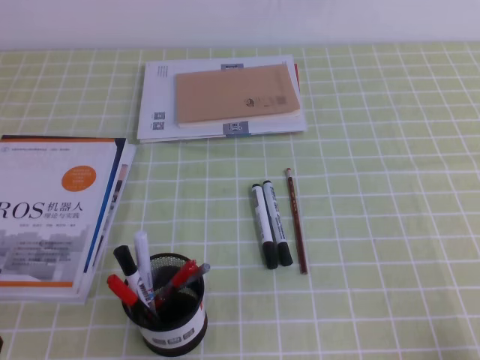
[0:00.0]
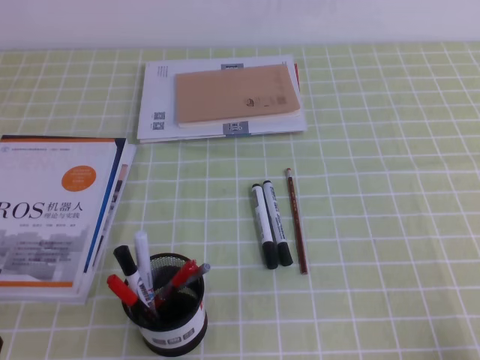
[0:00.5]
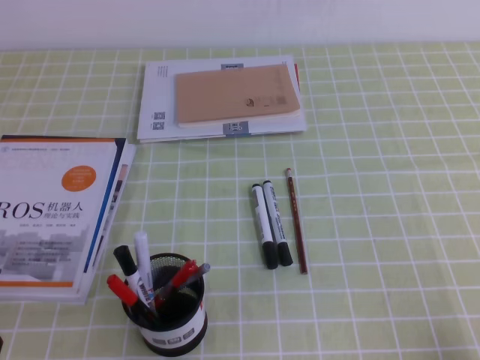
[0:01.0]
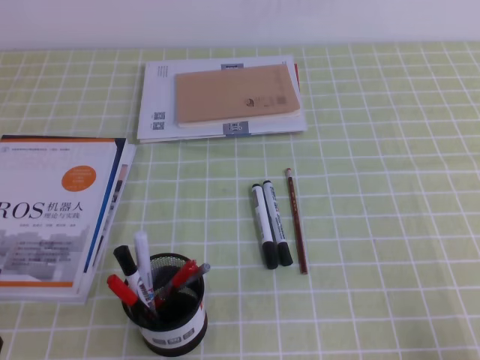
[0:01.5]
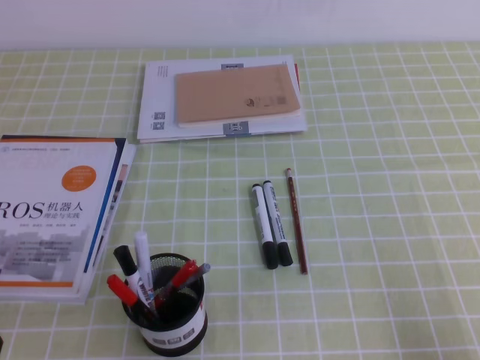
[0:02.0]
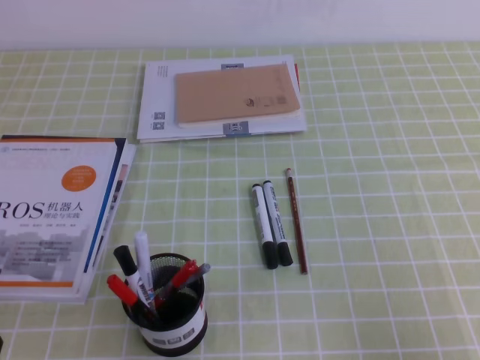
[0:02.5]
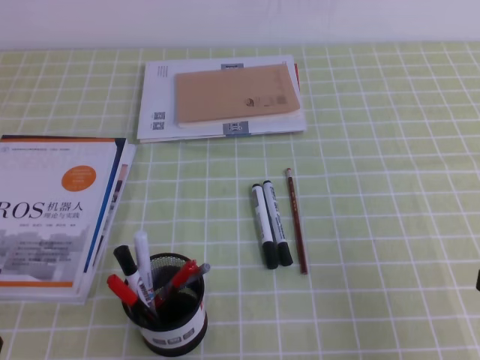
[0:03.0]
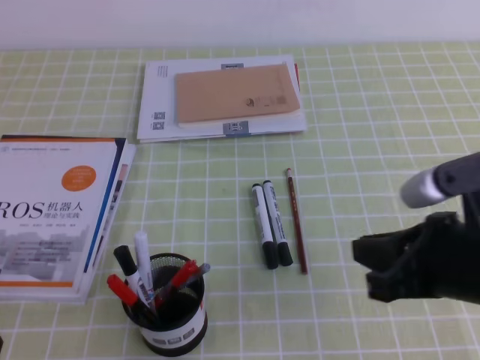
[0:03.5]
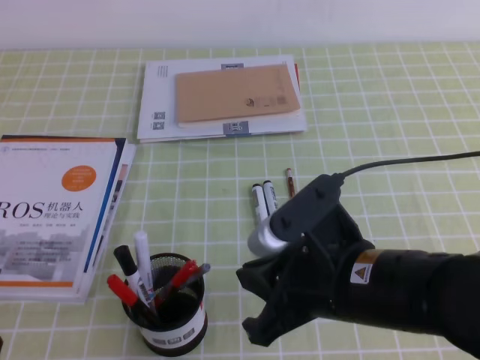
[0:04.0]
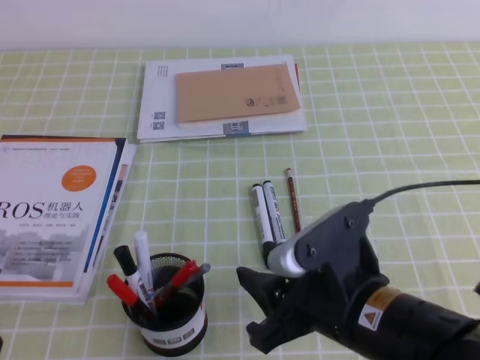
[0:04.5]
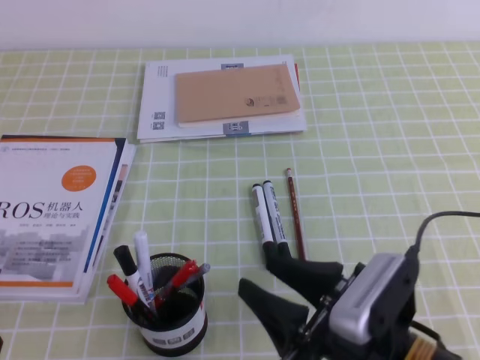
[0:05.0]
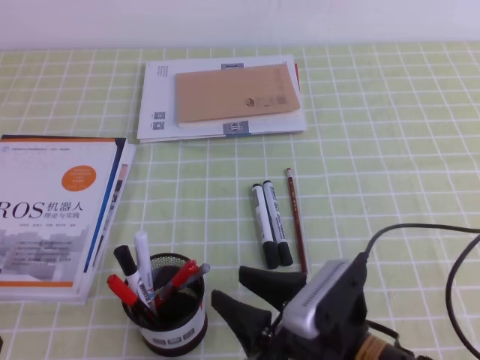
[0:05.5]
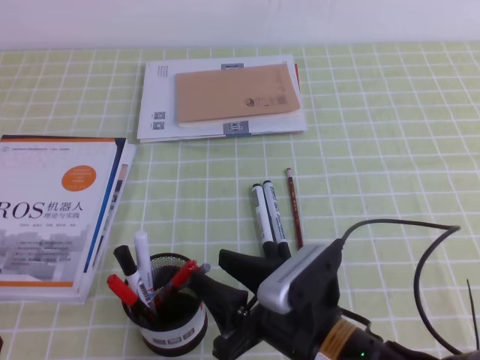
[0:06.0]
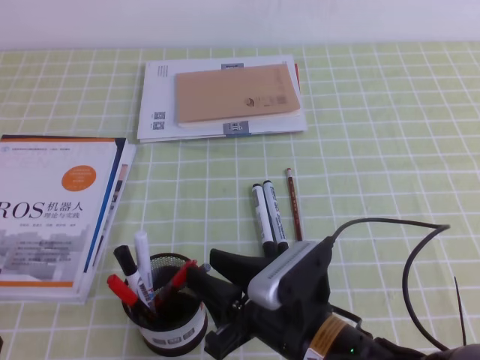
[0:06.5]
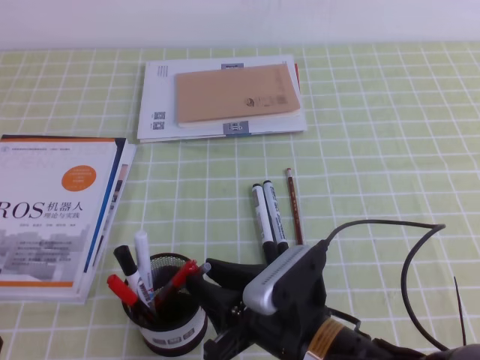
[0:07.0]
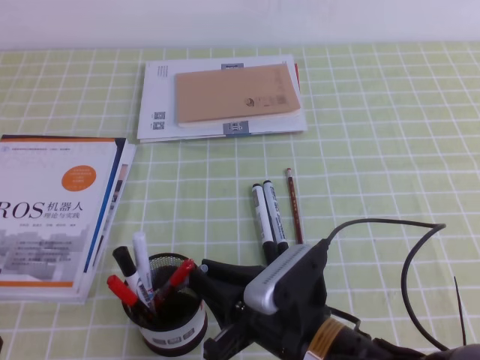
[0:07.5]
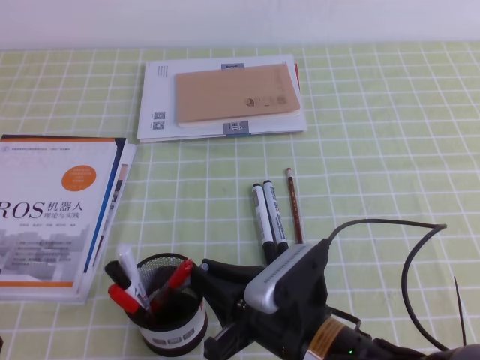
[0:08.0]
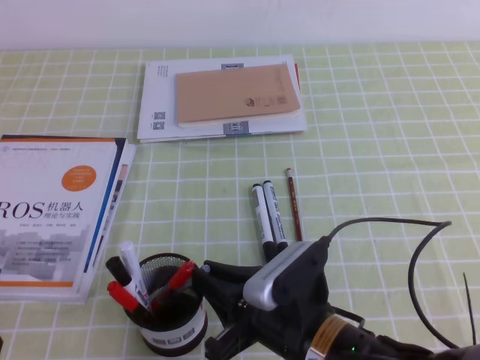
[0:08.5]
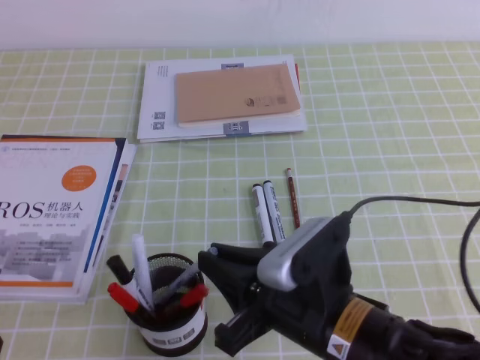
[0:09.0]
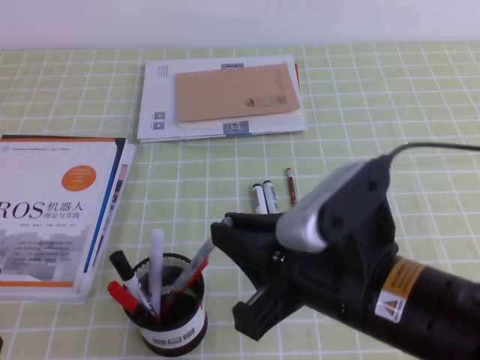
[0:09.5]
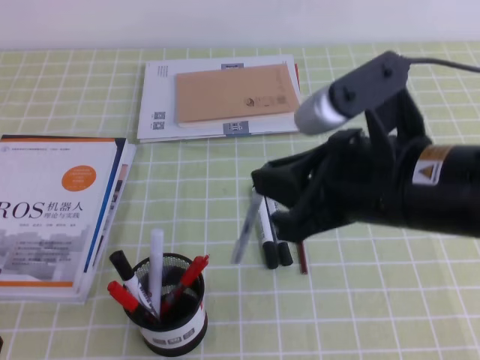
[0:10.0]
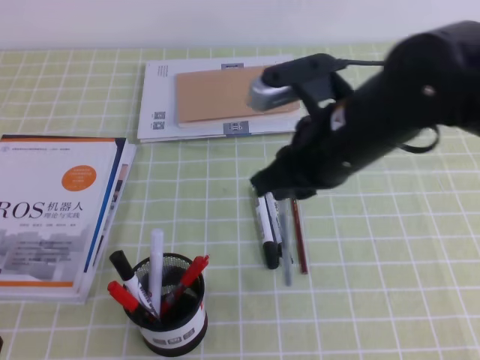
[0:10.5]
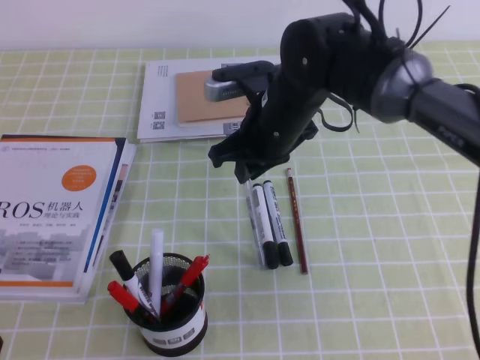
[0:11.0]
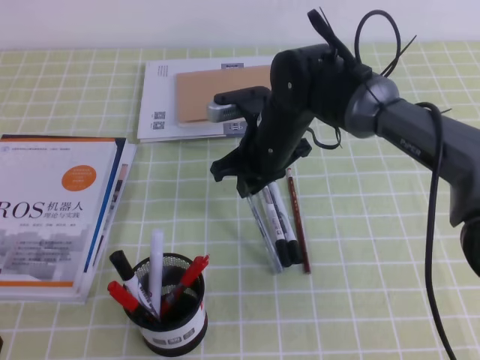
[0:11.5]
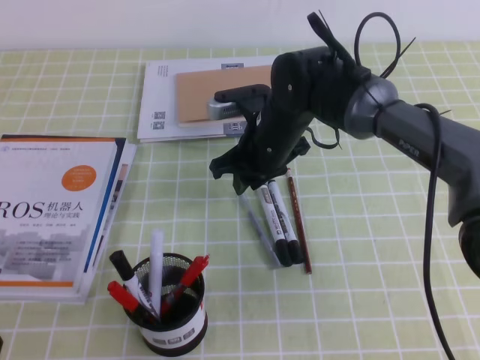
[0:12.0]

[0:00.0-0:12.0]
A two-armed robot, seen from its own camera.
0:02.0 to 0:04.0: The right gripper shifts approximately 25 cm to the left and forward.
0:04.0 to 0:06.0: The right gripper shifts approximately 10 cm downward, and opens its fingers.
0:06.0 to 0:08.0: The right gripper closes.
0:08.0 to 0:10.0: The right gripper goes some 15 cm upward.
0:10.0 to 0:12.0: The right gripper shifts approximately 25 cm forward and downward.

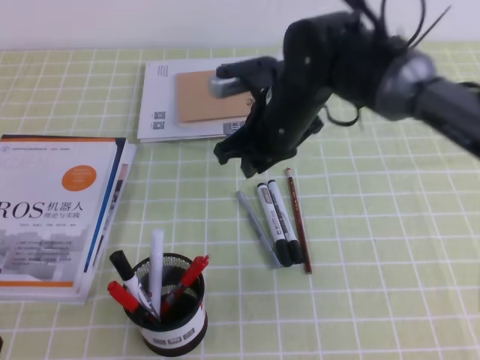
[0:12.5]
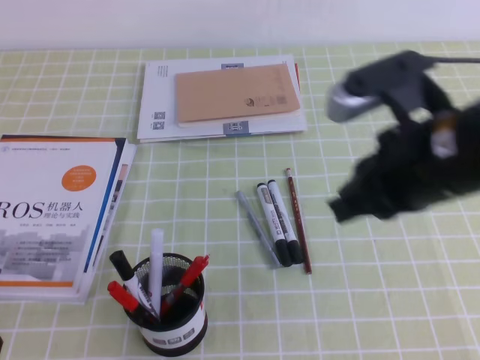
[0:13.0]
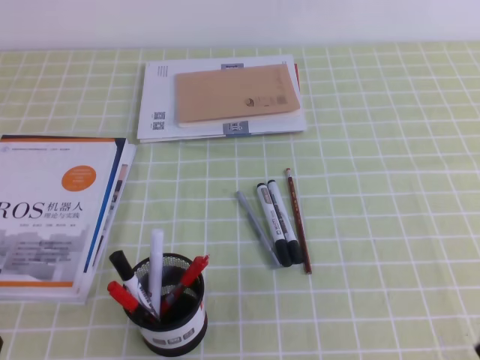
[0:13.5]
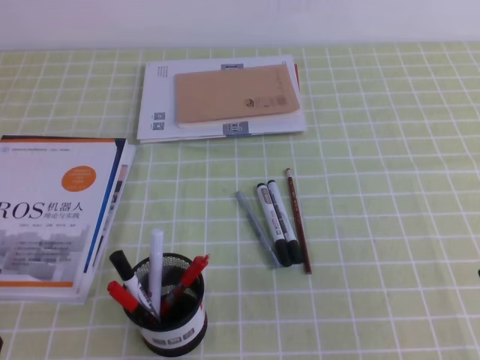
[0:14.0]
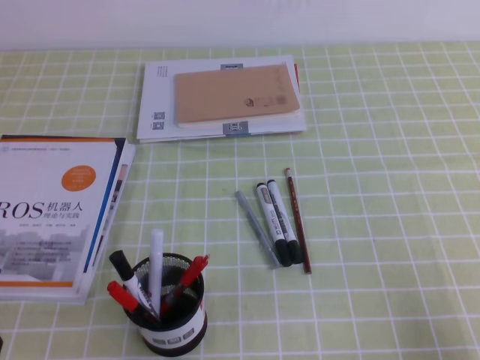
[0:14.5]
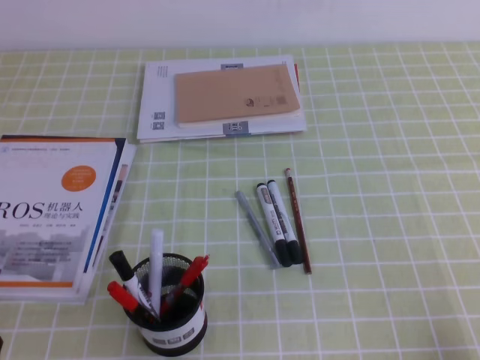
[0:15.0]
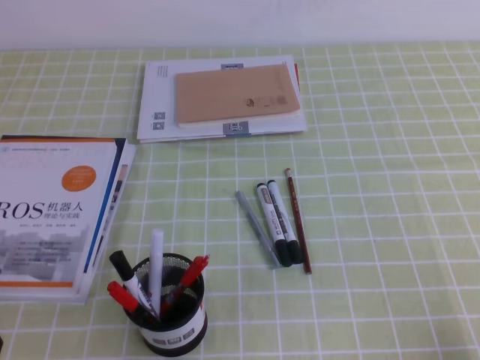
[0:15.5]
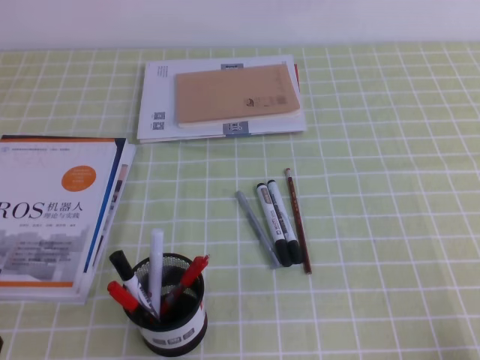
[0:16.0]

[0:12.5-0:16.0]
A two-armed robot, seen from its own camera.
Step, 0:12.5 to 0:16.0: Pick up the pen from the pen holder.
0:12.5 to 0:14.5: The right gripper heads backward and to the right, covering roughly 40 cm.

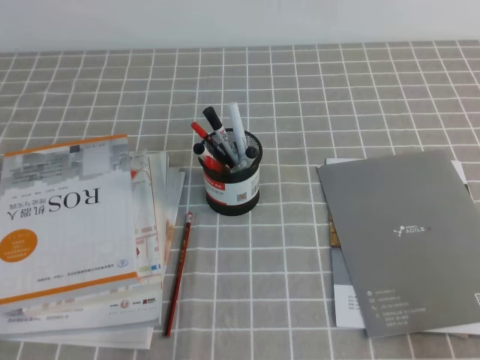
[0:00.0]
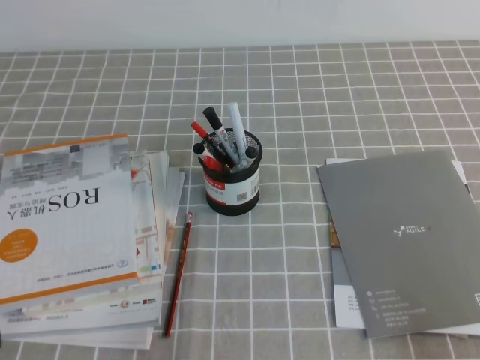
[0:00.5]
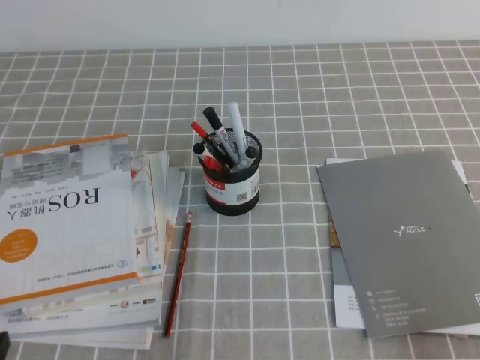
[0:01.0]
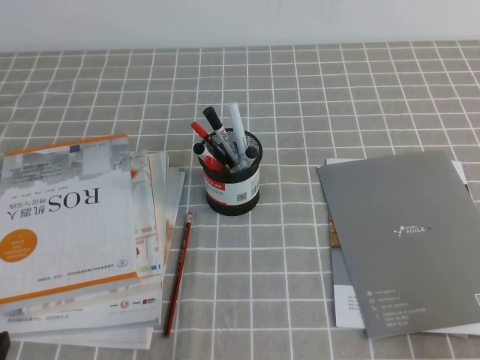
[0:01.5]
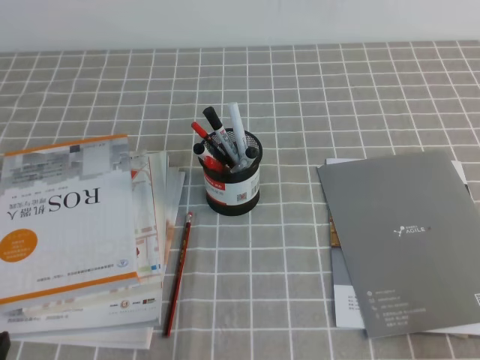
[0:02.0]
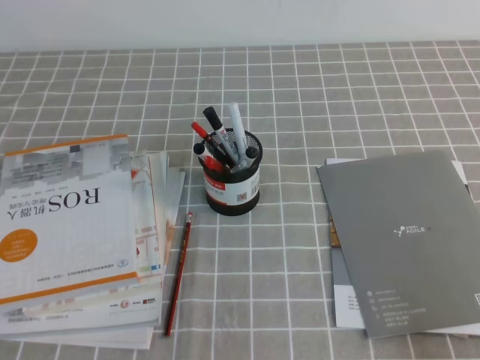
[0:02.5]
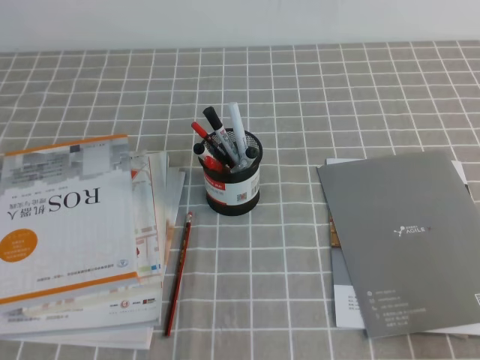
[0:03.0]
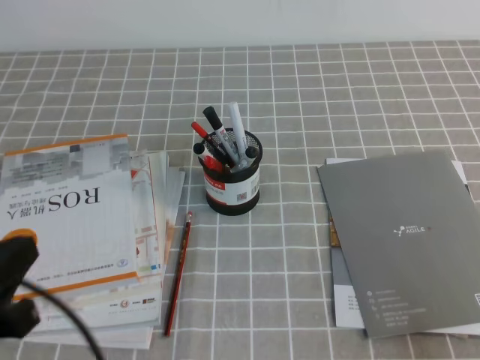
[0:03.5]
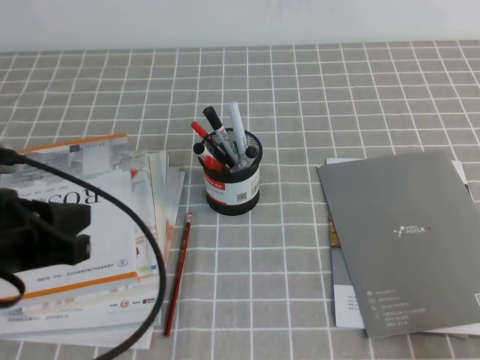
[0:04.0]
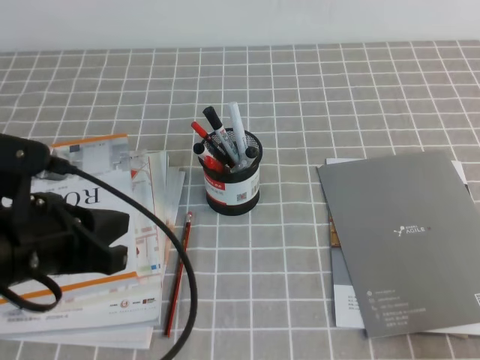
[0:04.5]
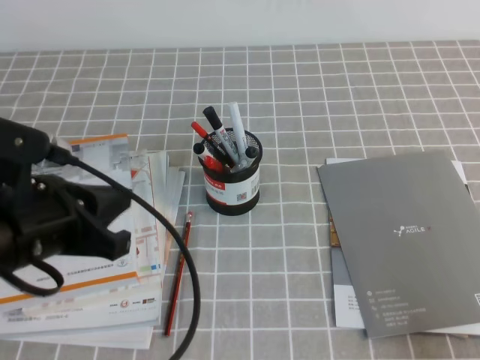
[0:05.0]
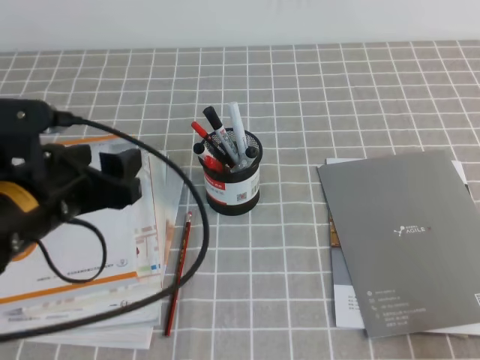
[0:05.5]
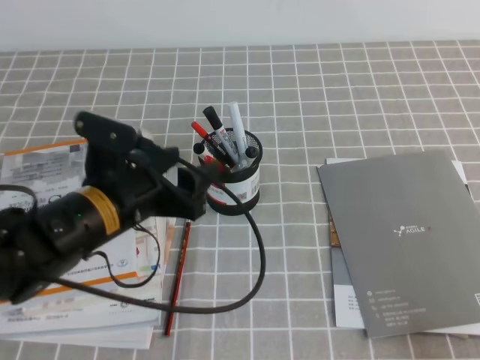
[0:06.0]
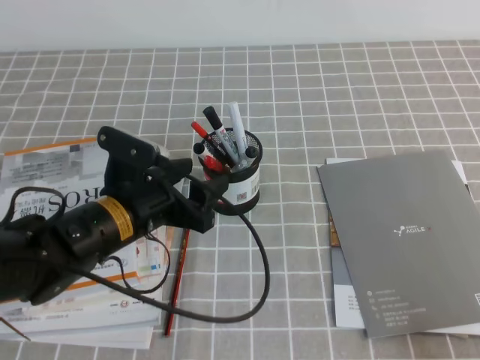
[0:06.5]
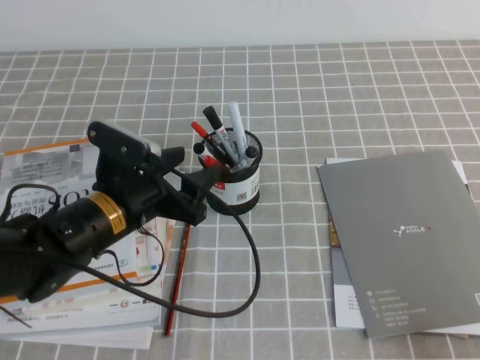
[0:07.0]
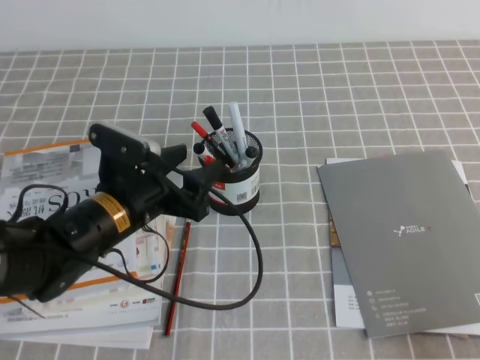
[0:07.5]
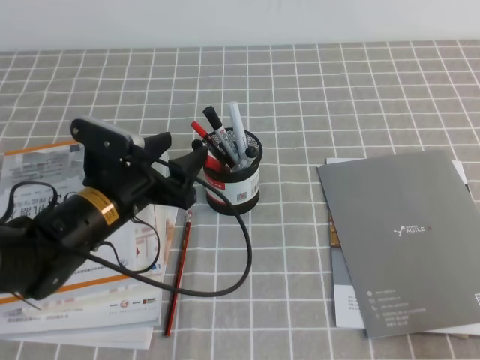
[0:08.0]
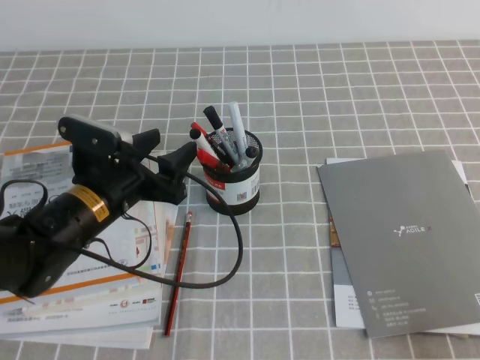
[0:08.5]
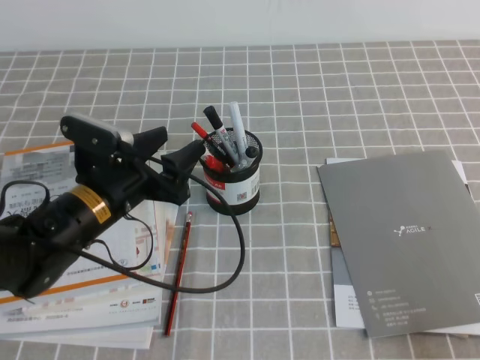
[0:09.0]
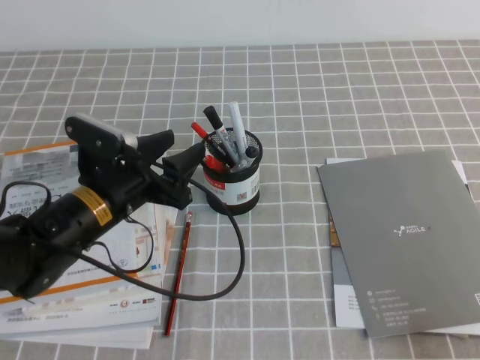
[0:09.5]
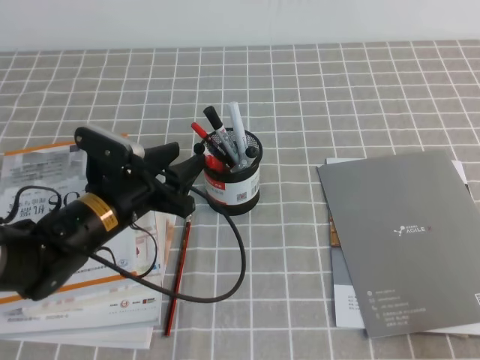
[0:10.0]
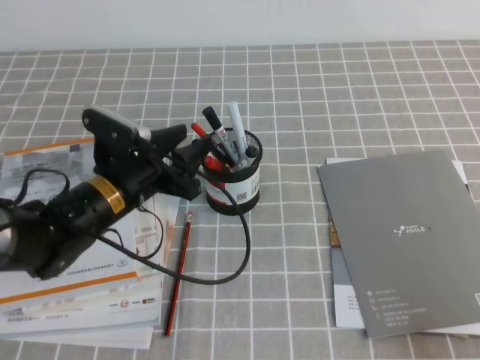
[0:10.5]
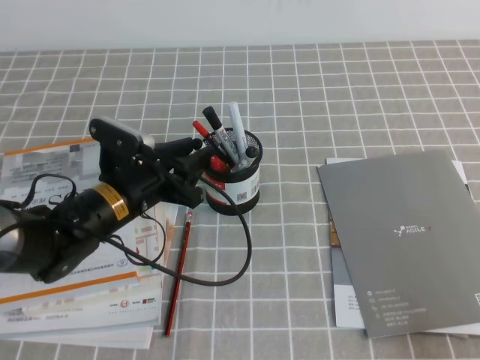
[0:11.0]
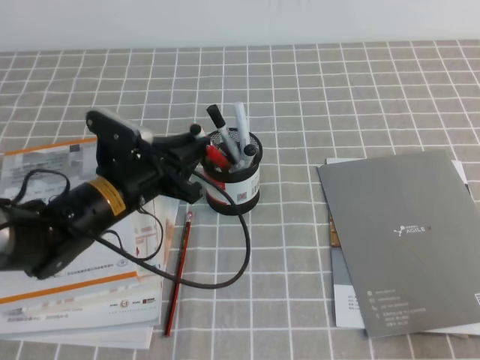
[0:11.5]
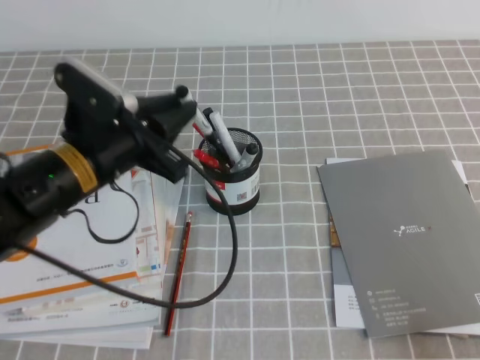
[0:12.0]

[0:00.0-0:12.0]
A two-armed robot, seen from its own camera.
0:02.0 to 0:04.0: The left gripper moves upward and forward, about 15 cm.
0:04.0 to 0:06.0: The left gripper heads forward, to the right and downward, covering approximately 15 cm, and opens its fingers.
0:06.0 to 0:08.0: The left gripper changes place by roughly 5 cm.
0:08.0 to 0:10.0: Both grippers stay put.
0:10.0 to 0:12.0: The left gripper goes about 10 cm upward, and closes up.
